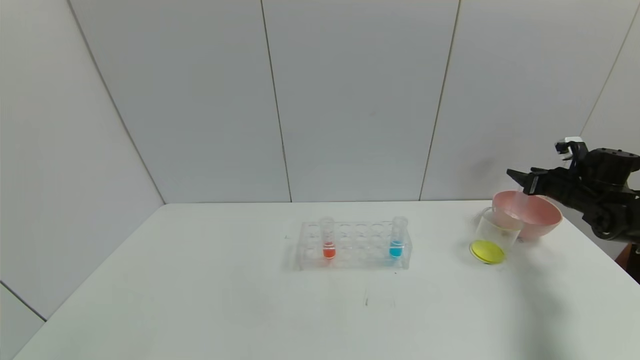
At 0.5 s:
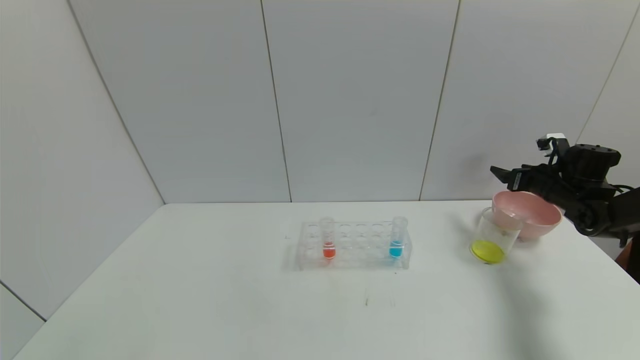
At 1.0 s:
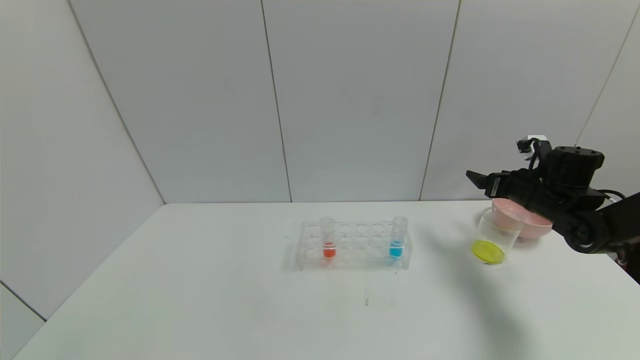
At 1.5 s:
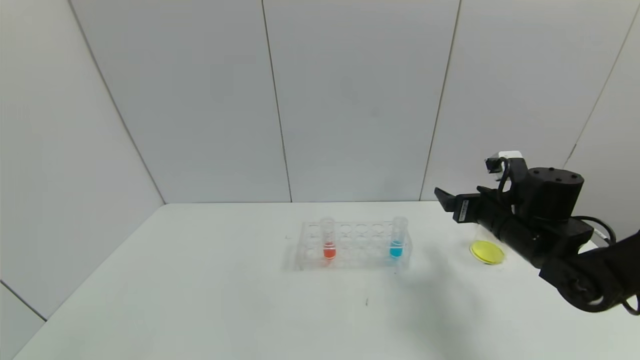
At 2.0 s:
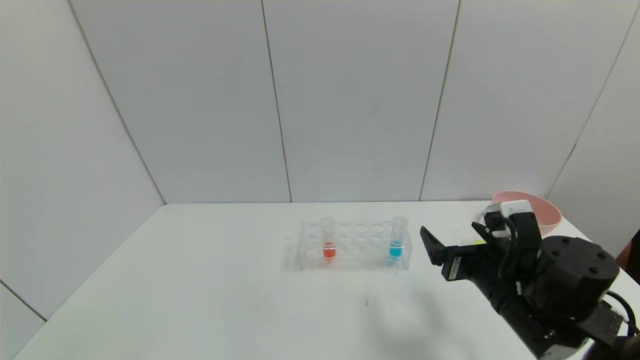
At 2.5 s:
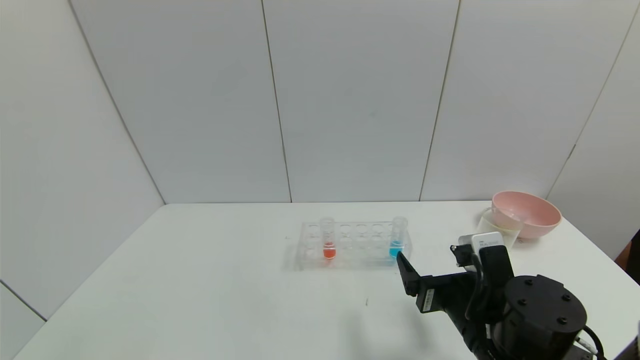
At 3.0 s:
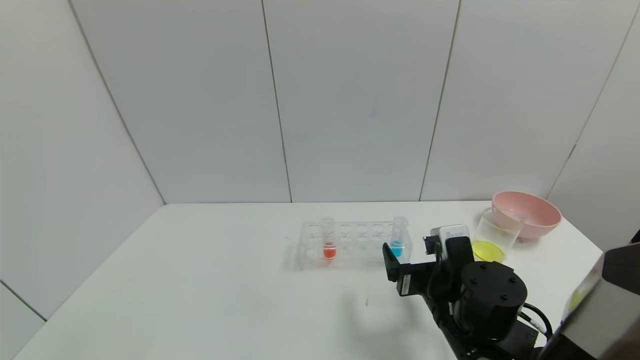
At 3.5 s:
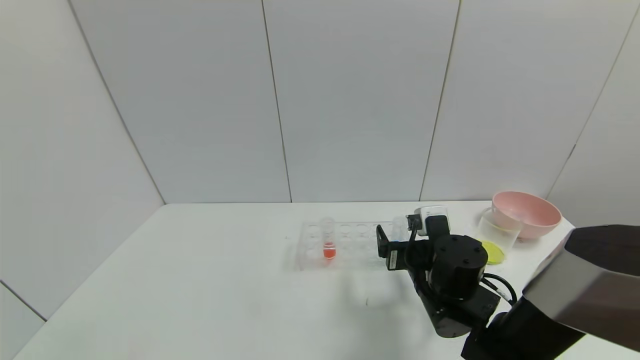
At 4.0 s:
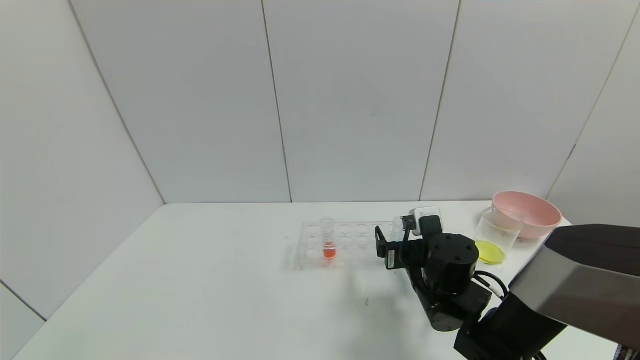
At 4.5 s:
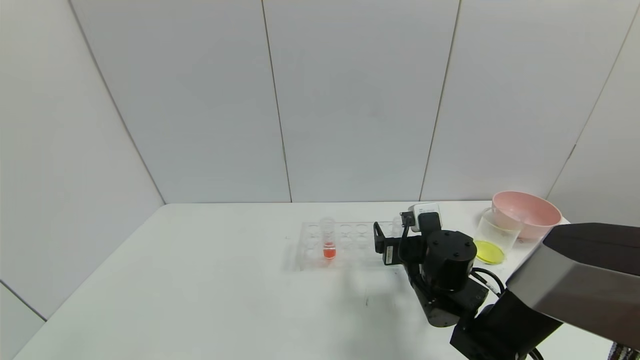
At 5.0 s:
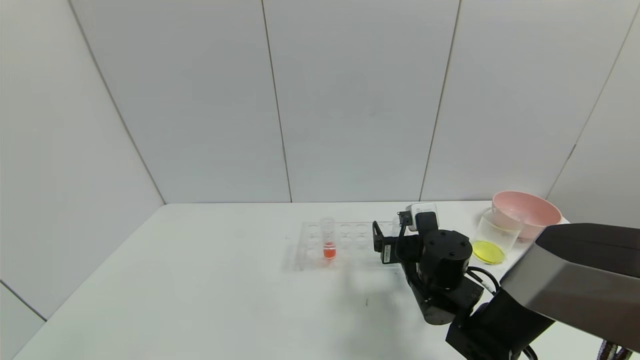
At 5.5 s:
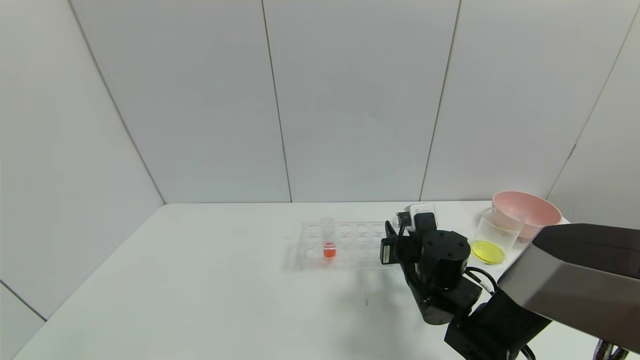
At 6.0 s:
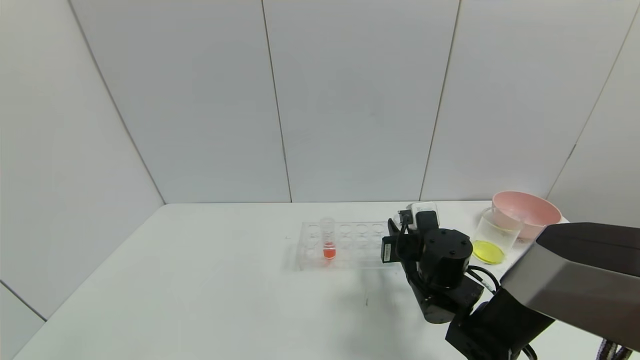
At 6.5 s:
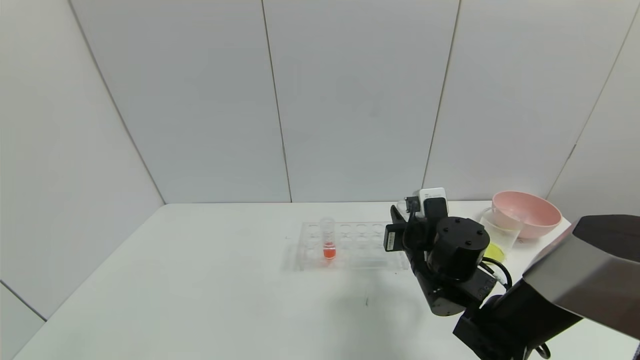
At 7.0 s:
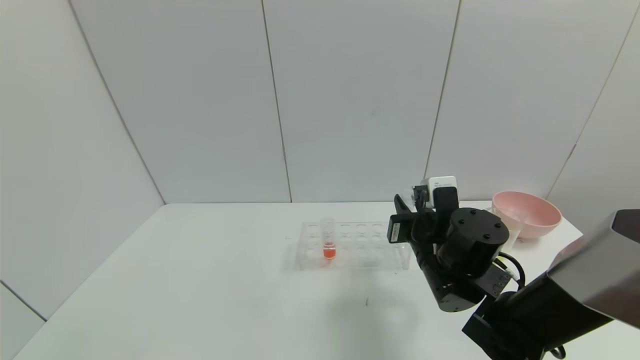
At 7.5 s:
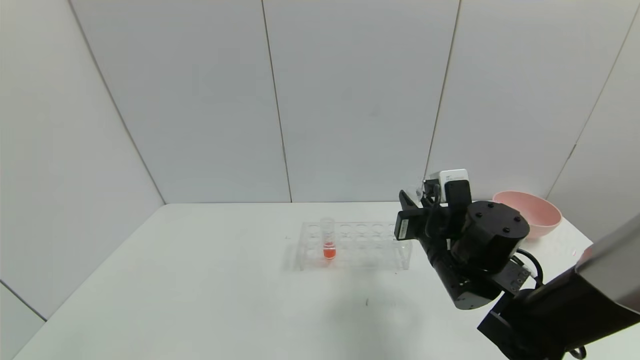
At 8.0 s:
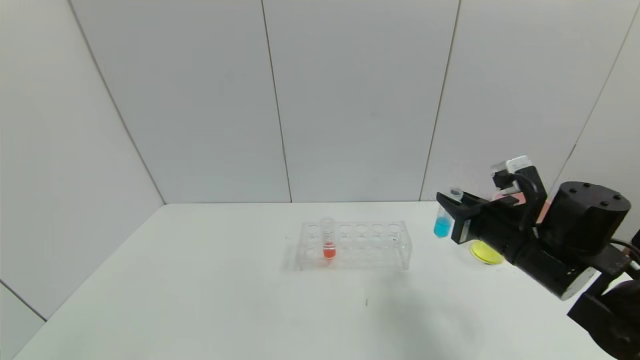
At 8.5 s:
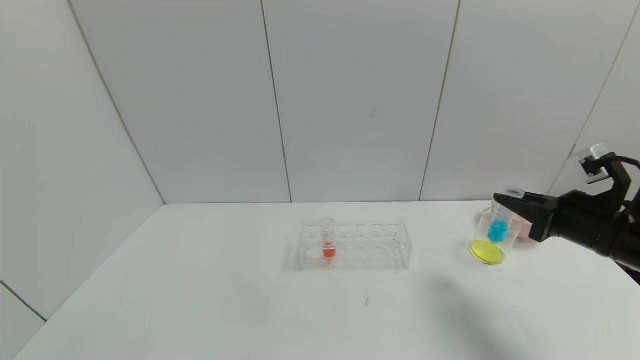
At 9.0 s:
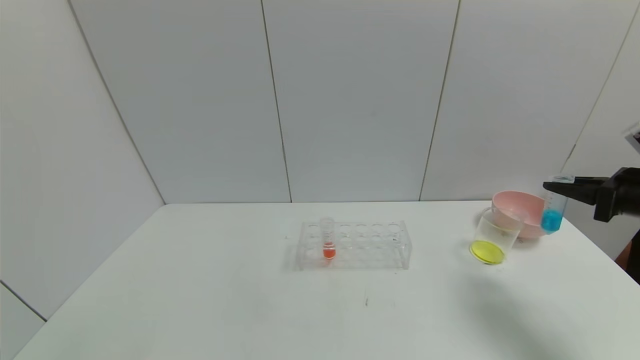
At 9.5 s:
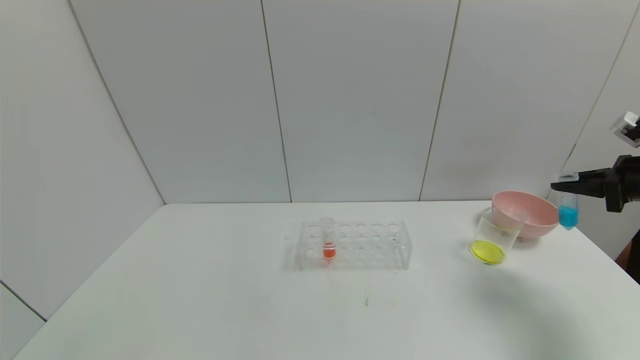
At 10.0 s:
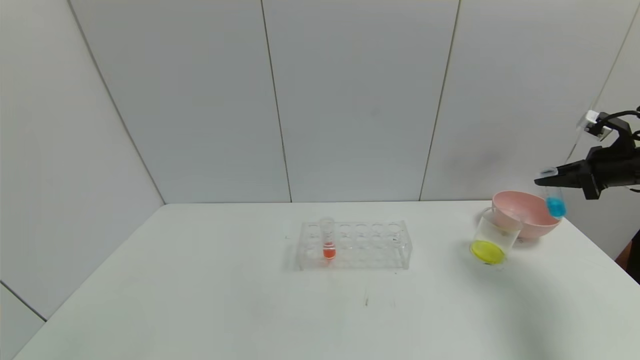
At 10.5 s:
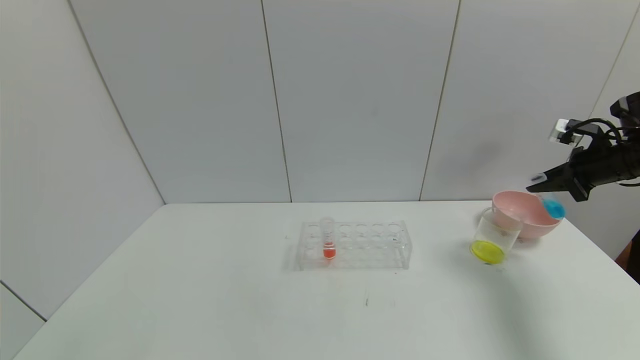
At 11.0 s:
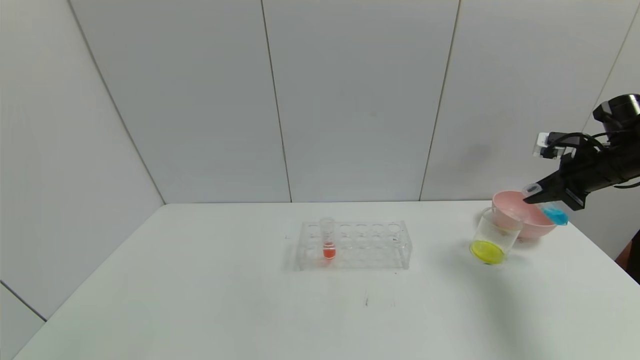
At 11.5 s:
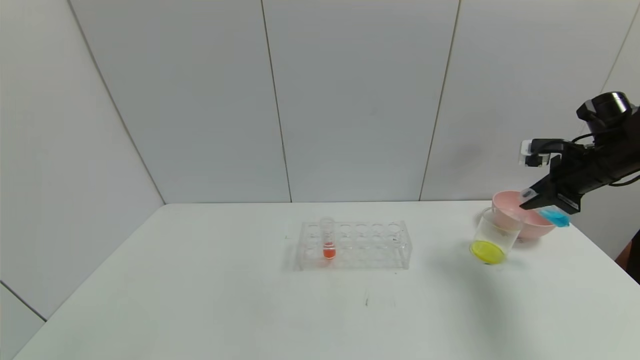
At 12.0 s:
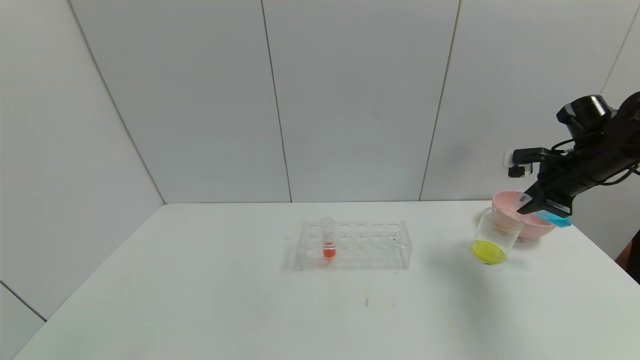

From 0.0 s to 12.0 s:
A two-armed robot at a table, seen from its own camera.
Task of the whole recording: pick up the test tube with yellow pigment and the test tube with blue pigment by grippers and pour them into the beaker.
Step, from 1.0 s to 7.5 s: Pick up the test tube containing the blue reagent with right gripper.
From 0.0 s to 2.0 s: The right gripper goes approximately 35 cm to the left and backward, and opens its fingers.
From 2.0 s to 4.0 s: The right gripper shifts roughly 10 cm forward, to the left and downward.
From 4.0 s to 6.0 s: The right gripper closes.
From 6.0 s to 8.0 s: The right gripper heads to the right and upward, covering approximately 15 cm.
From 8.0 s to 10.0 s: The right gripper travels to the right by some 20 cm.
From 10.0 s to 12.0 s: The right gripper heads to the left, covering roughly 10 cm.

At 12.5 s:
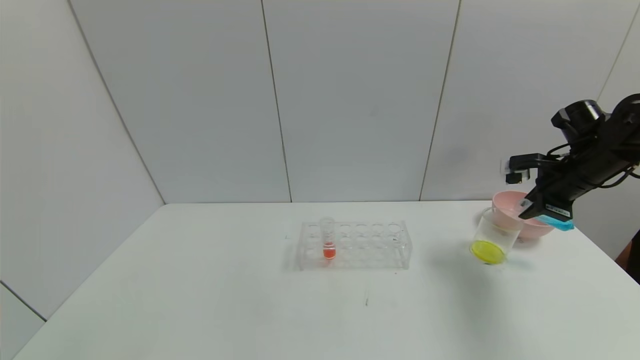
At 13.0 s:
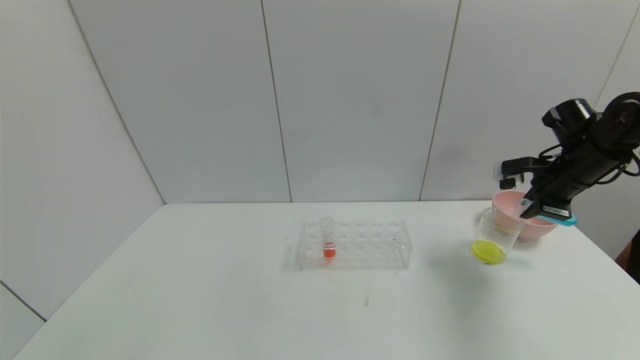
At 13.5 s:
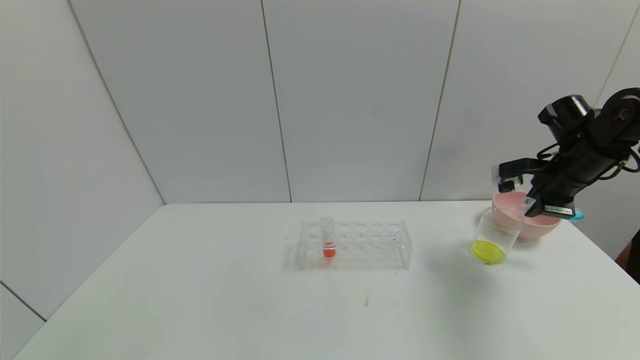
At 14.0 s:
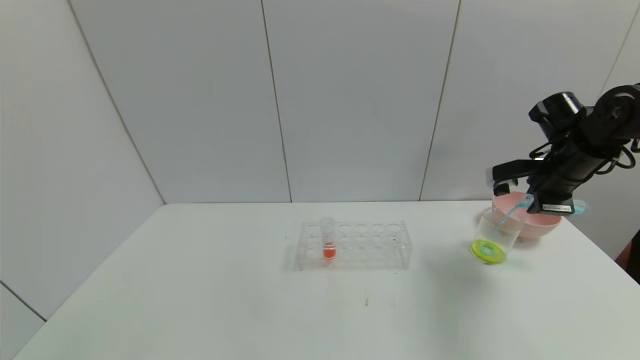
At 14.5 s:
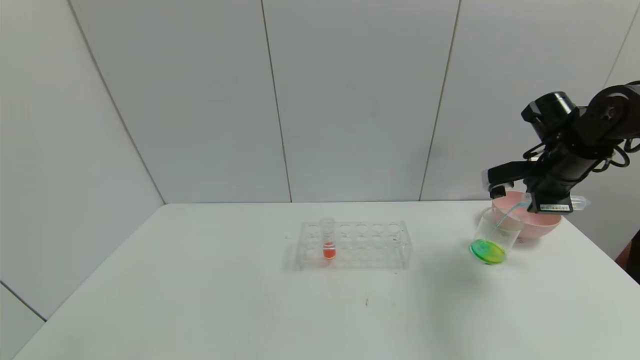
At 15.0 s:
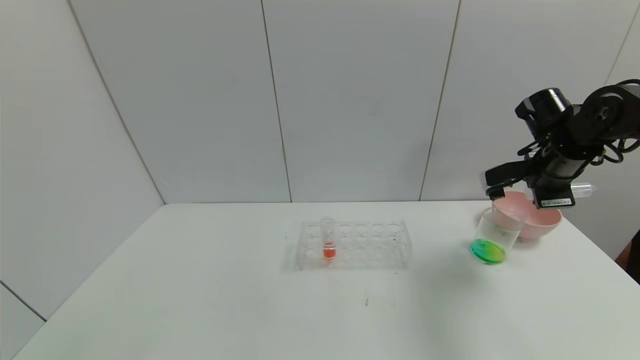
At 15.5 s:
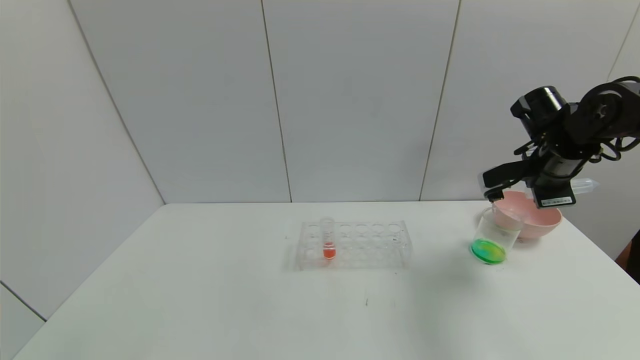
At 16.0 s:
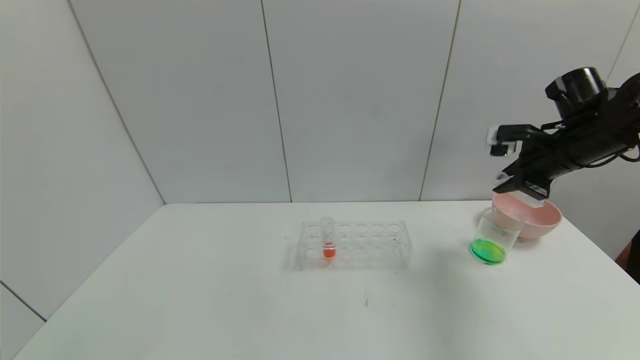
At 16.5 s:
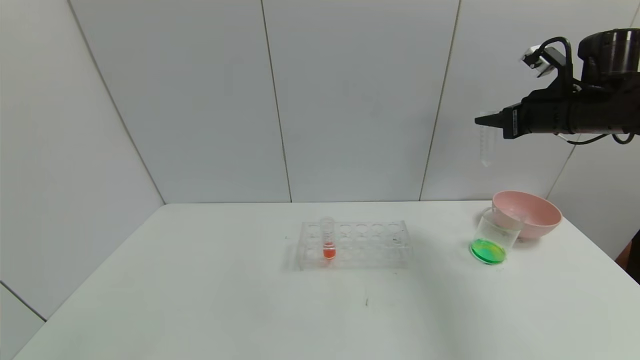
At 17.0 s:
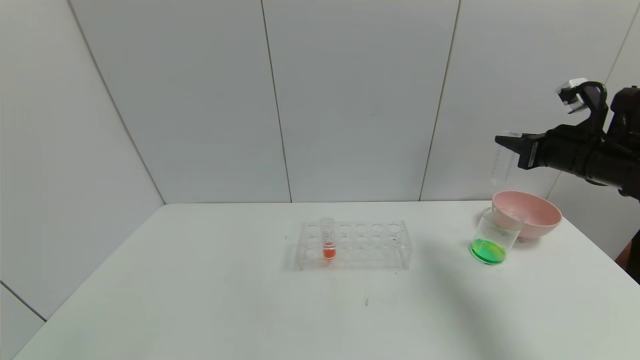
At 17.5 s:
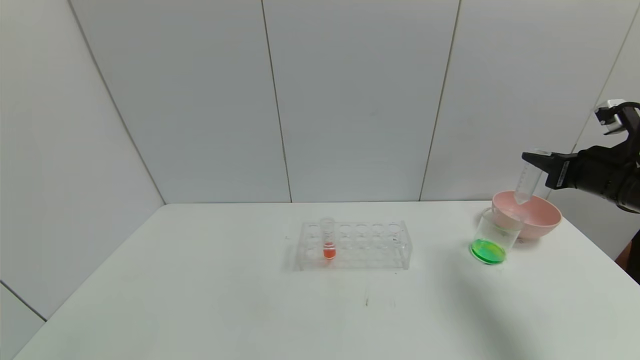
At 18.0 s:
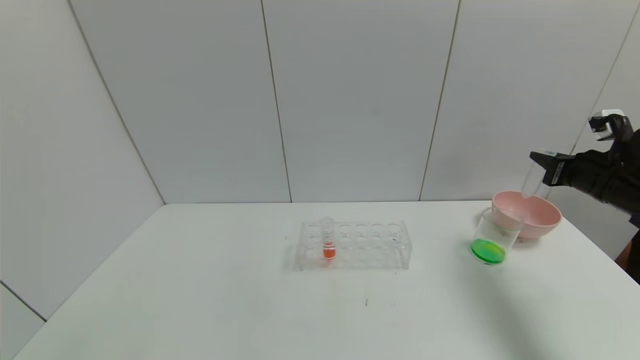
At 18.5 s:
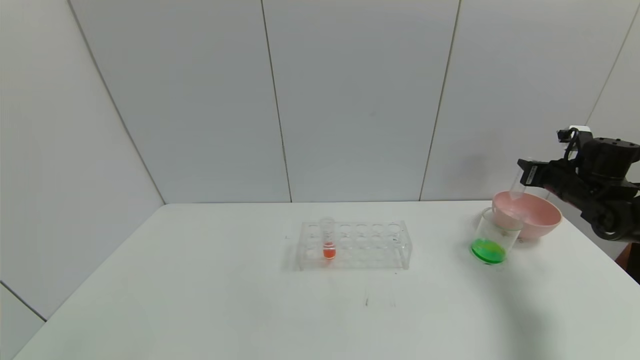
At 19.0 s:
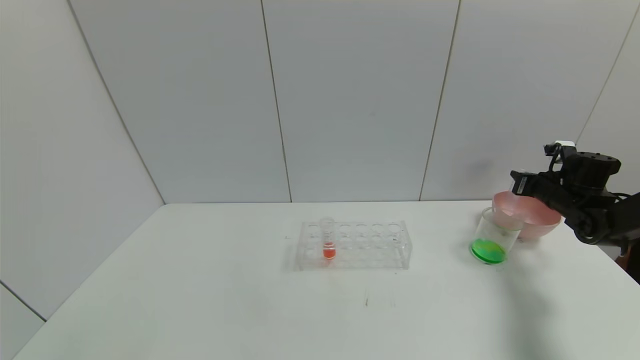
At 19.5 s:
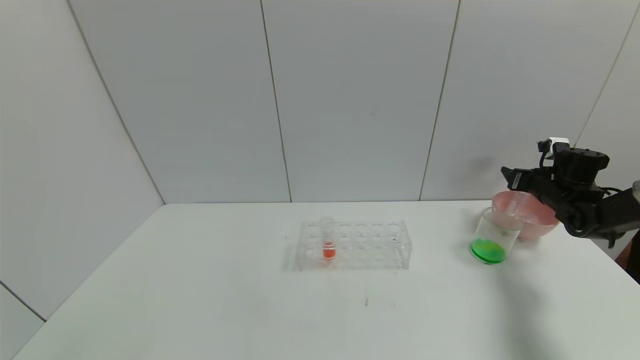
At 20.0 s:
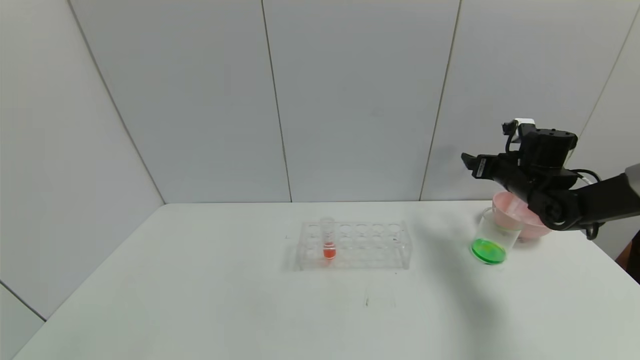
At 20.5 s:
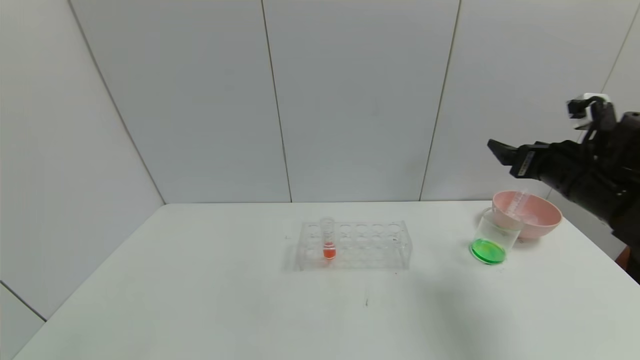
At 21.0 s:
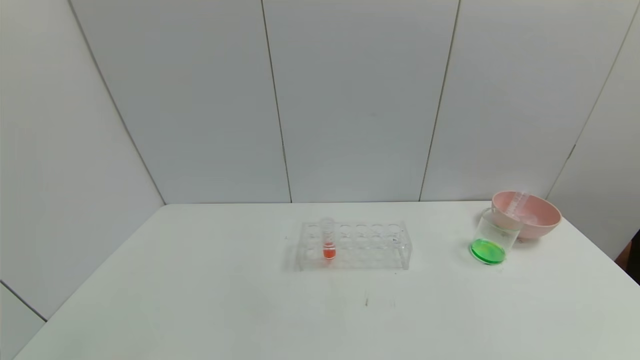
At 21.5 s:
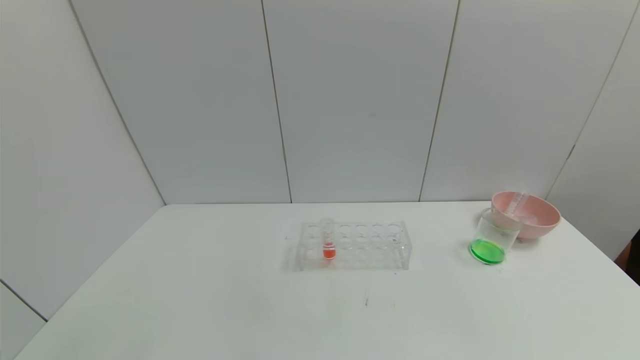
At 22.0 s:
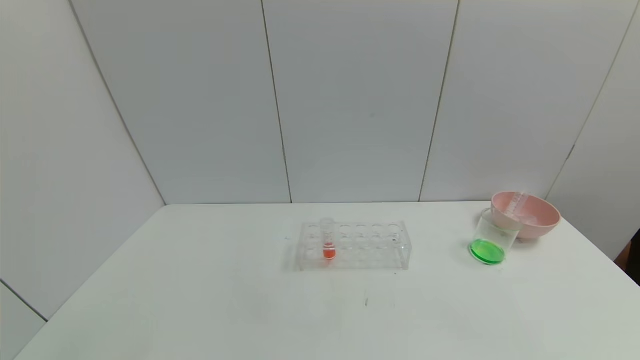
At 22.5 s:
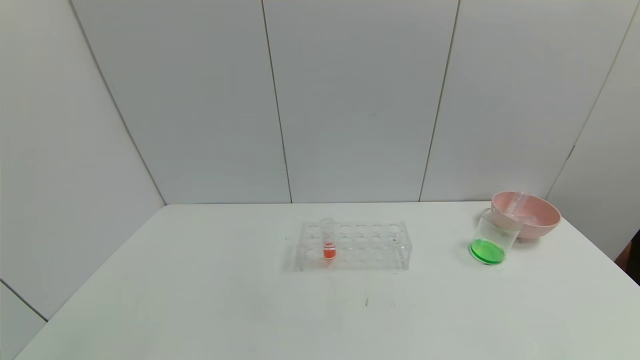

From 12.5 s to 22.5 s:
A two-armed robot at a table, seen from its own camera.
Task of the whole recording: pick up the test tube with yellow pigment and the test tube with blue pigment by grippers and pour them into the beaker.
Step, from 12.5 s to 16.5 s: Pour the blue reagent into the graduated cylinder with right gripper.
Step, from 17.0 s to 20.5 s: Place the test tube into the bowl with right gripper.
From 14.5 s to 16.5 s: The right gripper is displaced upward by about 5 cm.
From 16.5 s to 18.5 s: The right gripper travels downward and to the right by some 15 cm.
From 18.5 s to 20.5 s: The right gripper moves to the left, backward and upward, some 15 cm, and opens up.
From 20.5 s to 22.5 s: The right gripper is displaced backward and downward by some 40 cm.
